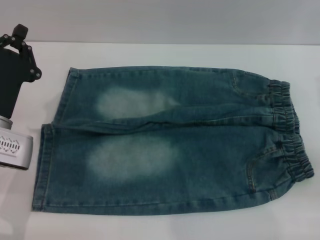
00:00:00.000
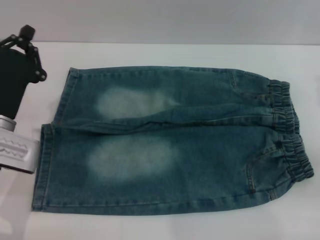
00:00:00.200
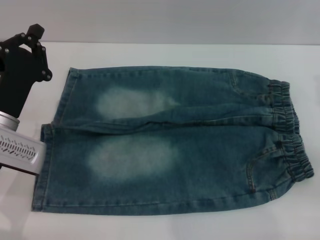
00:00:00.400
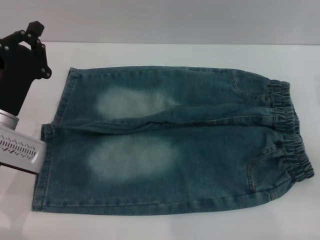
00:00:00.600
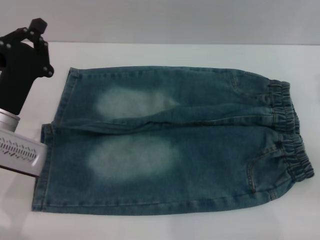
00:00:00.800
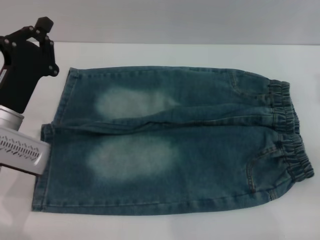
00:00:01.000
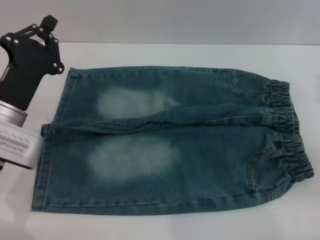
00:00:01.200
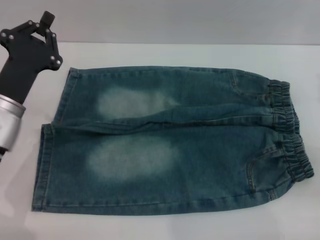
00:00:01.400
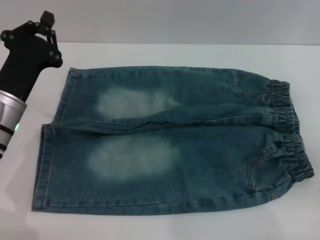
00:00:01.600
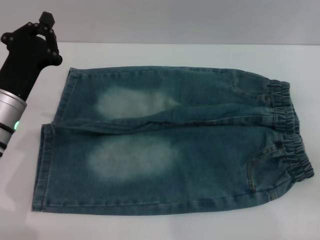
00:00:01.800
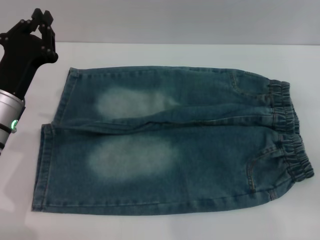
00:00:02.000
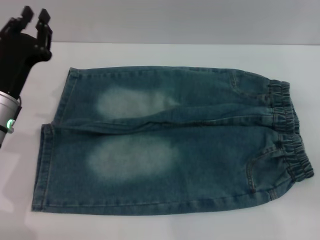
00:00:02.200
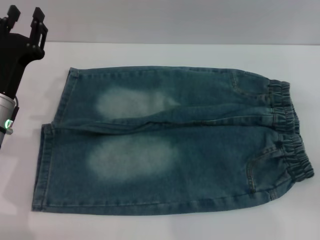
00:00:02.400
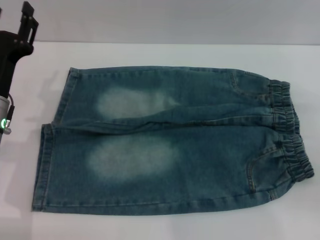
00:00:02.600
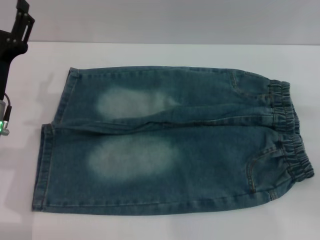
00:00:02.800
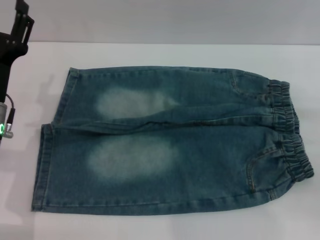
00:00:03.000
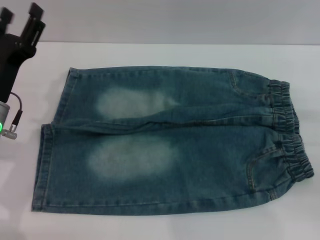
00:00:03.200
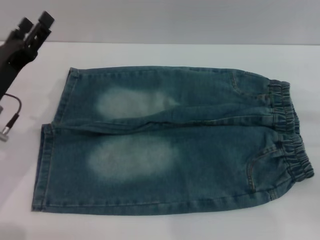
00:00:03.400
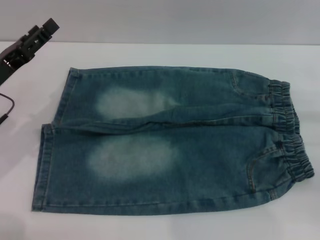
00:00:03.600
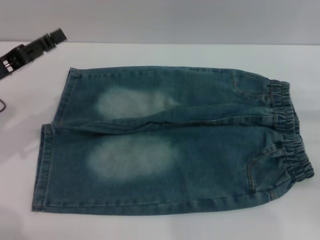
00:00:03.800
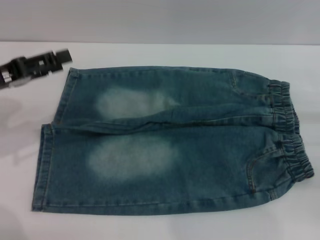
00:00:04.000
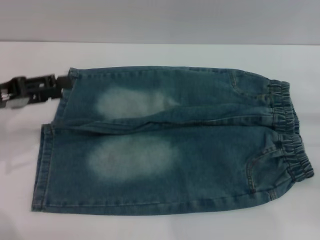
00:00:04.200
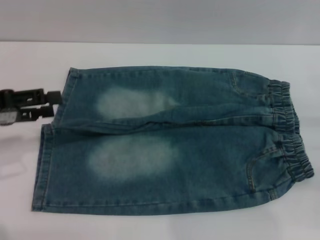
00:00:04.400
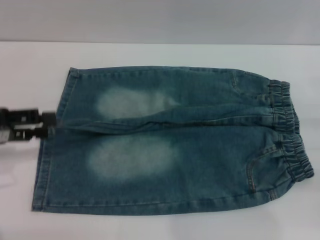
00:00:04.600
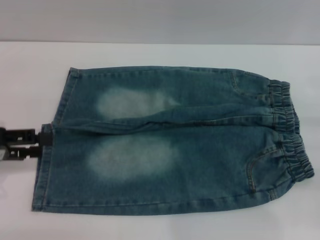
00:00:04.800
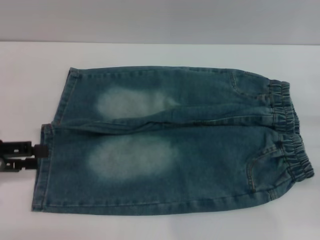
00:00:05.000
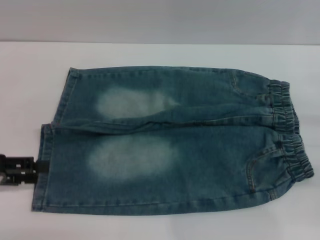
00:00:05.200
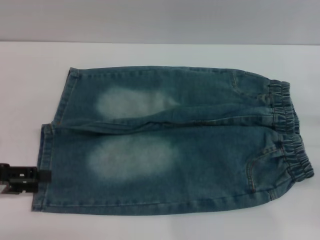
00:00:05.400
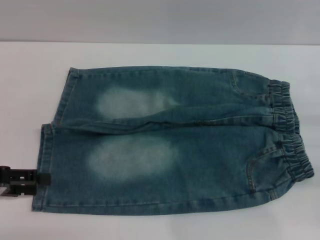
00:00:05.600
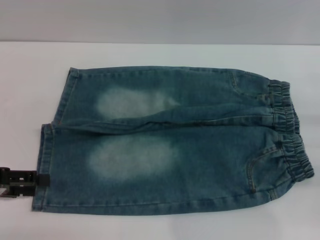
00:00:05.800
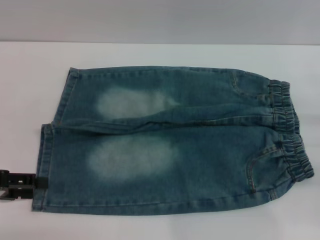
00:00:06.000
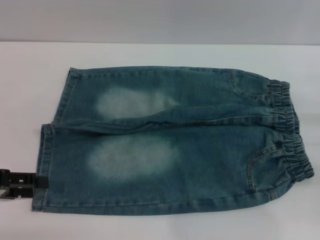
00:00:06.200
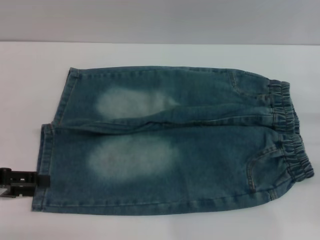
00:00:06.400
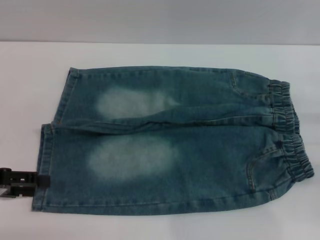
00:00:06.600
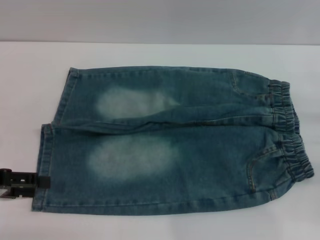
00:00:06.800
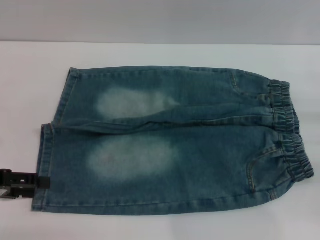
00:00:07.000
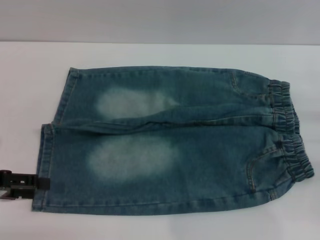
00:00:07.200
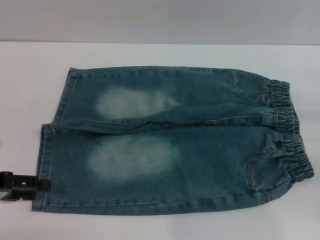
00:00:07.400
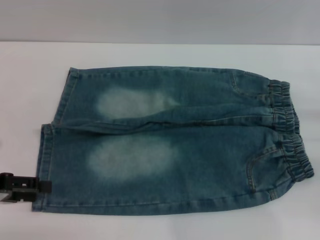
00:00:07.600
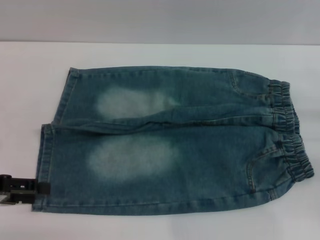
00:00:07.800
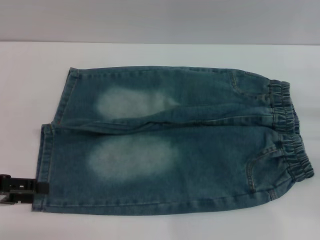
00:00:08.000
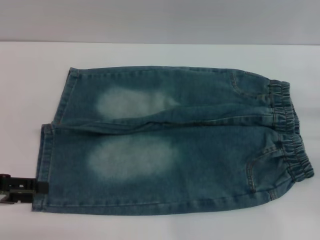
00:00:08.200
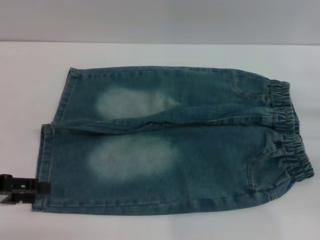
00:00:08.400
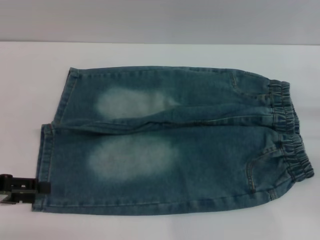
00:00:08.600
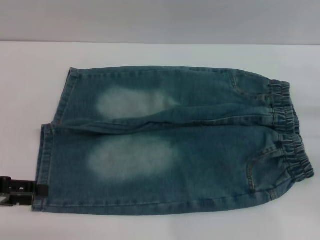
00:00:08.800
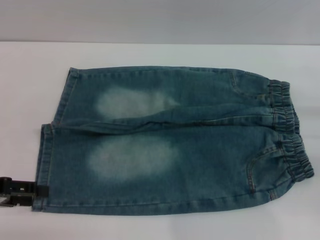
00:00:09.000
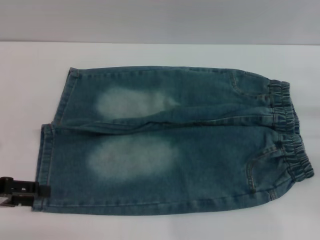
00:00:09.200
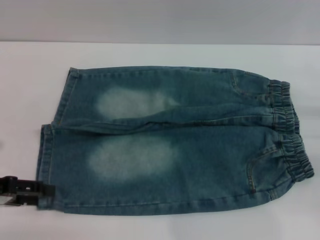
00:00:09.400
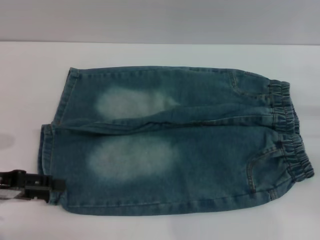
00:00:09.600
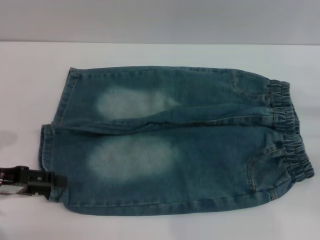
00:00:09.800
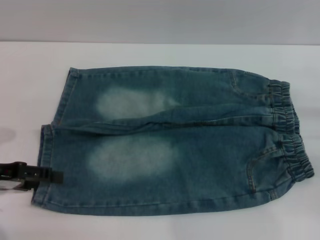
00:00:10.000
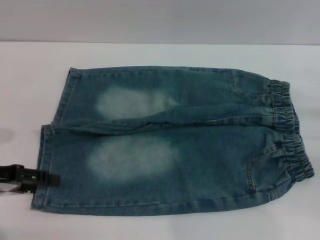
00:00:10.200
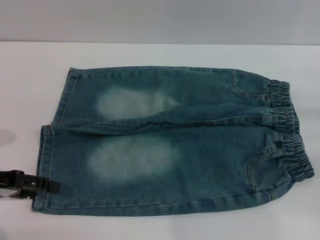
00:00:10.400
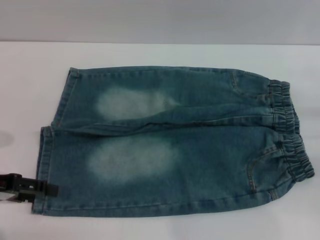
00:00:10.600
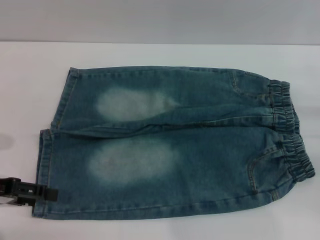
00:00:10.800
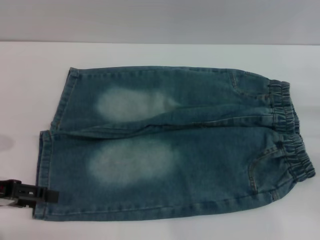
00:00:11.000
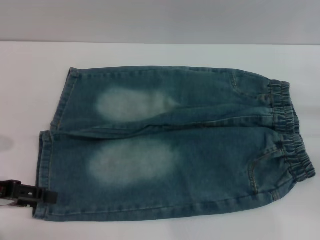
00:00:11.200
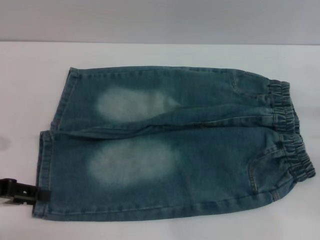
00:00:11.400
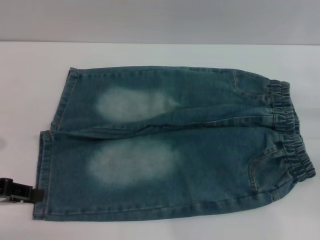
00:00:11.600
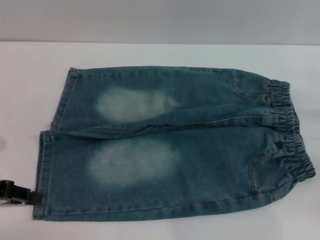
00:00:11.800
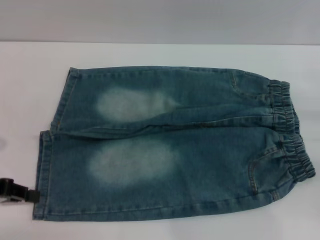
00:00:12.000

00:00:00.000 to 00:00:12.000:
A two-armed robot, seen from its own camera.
00:00:01.600 to 00:00:03.000: The left gripper opens.
00:00:03.000 to 00:00:04.400: The left gripper travels to the left and upward by approximately 10 cm.
00:00:04.400 to 00:00:06.000: The left gripper shifts some 5 cm backward.
00:00:06.000 to 00:00:07.600: The two grippers keep their place.
00:00:07.600 to 00:00:09.000: Both grippers stay about where they are.
00:00:09.000 to 00:00:10.400: The grippers stay close to where they were, moving slightly.
00:00:10.400 to 00:00:12.000: The left gripper closes up.

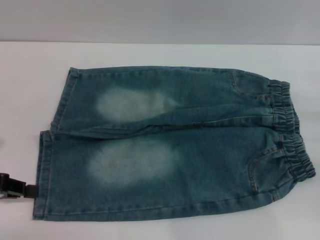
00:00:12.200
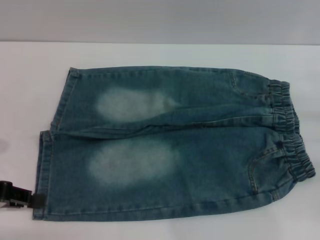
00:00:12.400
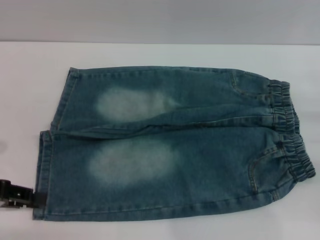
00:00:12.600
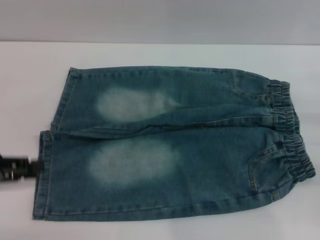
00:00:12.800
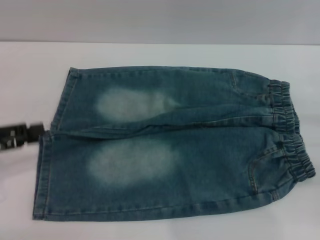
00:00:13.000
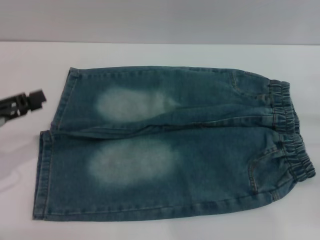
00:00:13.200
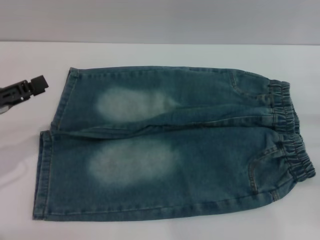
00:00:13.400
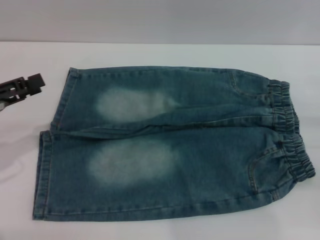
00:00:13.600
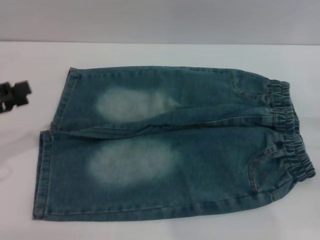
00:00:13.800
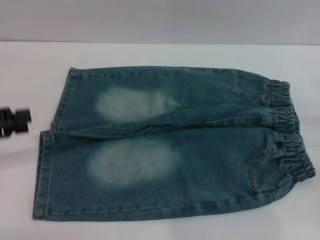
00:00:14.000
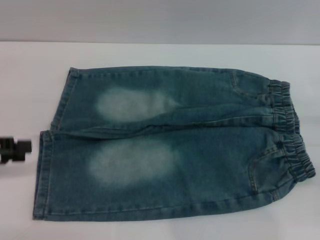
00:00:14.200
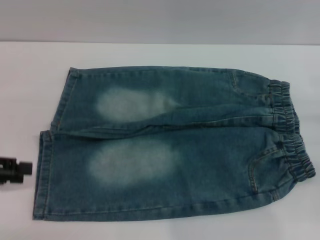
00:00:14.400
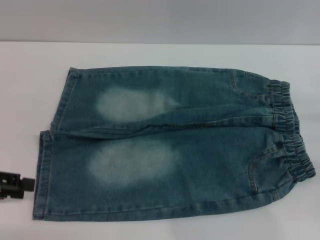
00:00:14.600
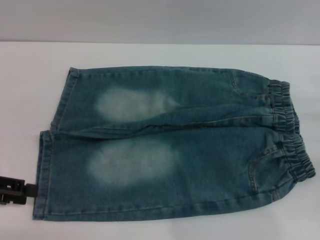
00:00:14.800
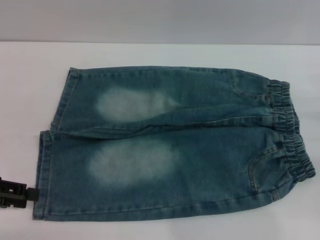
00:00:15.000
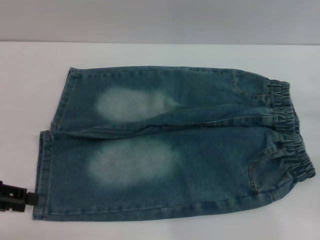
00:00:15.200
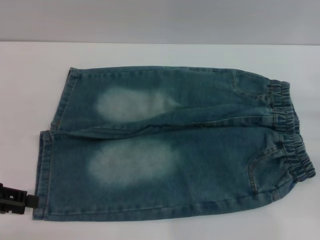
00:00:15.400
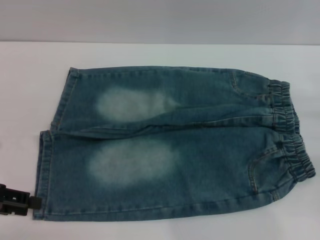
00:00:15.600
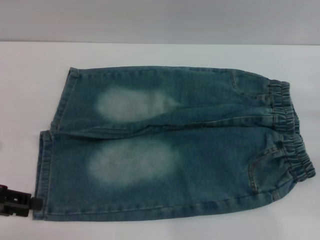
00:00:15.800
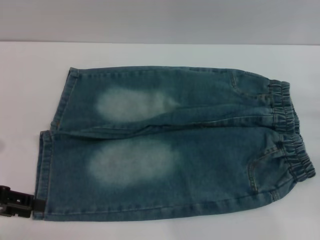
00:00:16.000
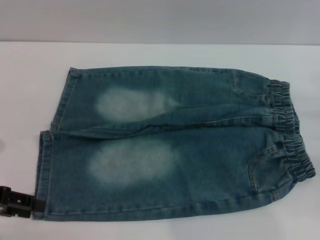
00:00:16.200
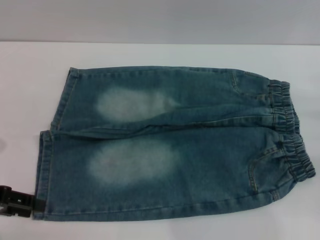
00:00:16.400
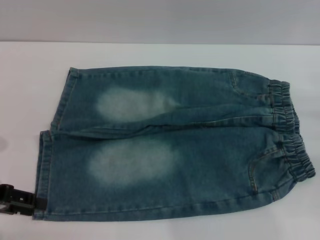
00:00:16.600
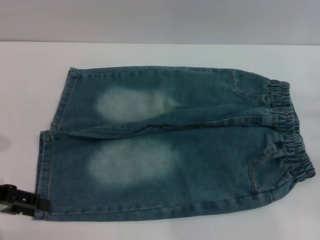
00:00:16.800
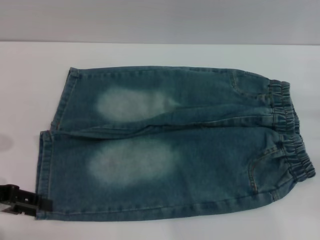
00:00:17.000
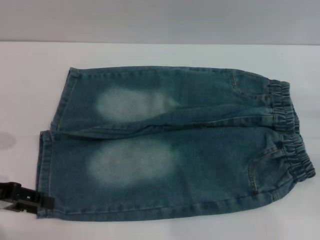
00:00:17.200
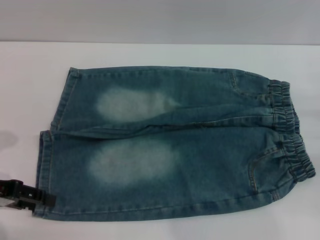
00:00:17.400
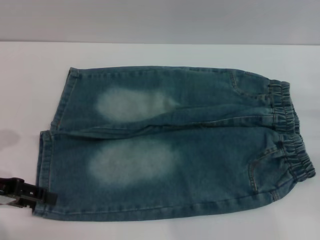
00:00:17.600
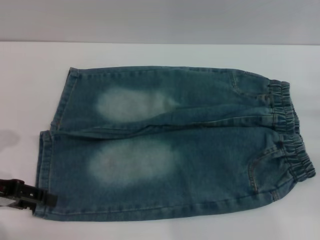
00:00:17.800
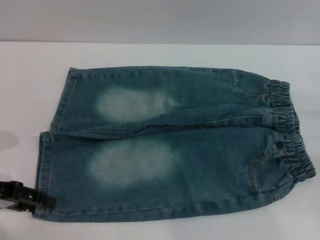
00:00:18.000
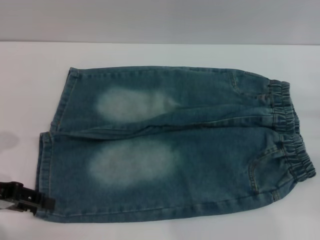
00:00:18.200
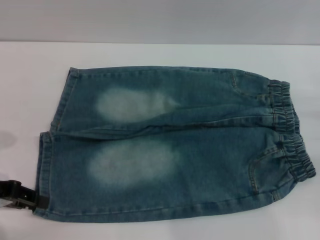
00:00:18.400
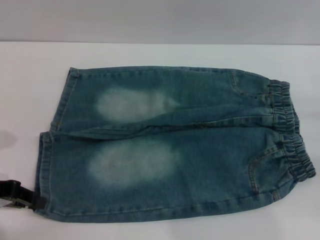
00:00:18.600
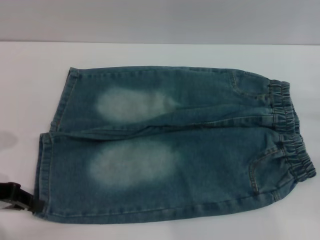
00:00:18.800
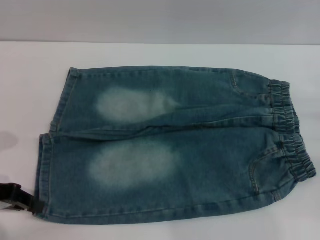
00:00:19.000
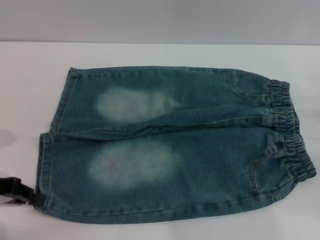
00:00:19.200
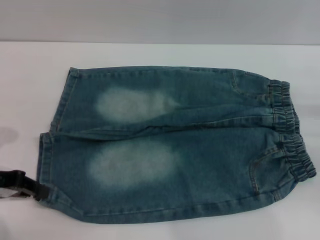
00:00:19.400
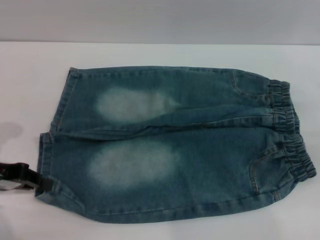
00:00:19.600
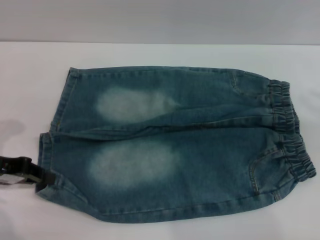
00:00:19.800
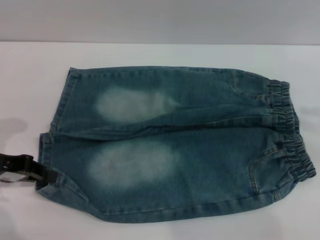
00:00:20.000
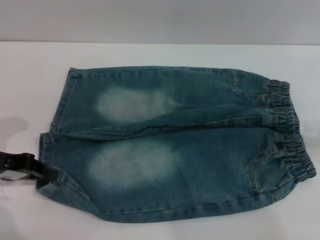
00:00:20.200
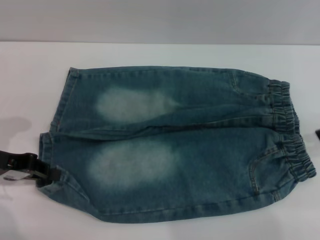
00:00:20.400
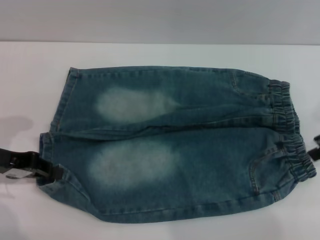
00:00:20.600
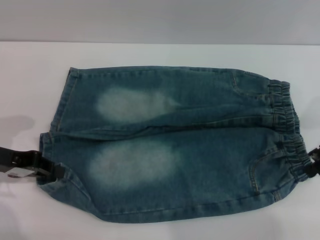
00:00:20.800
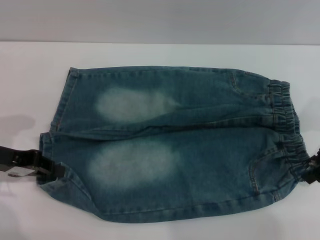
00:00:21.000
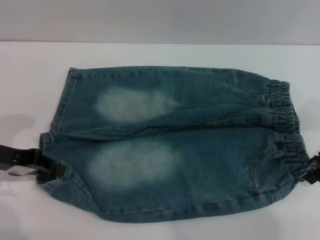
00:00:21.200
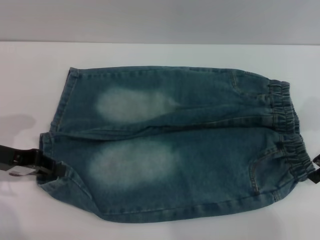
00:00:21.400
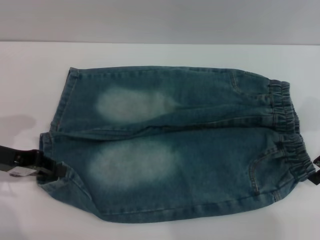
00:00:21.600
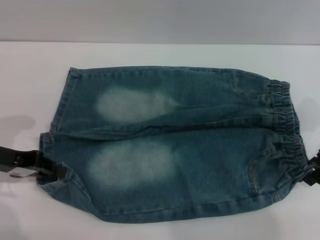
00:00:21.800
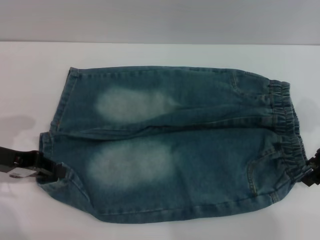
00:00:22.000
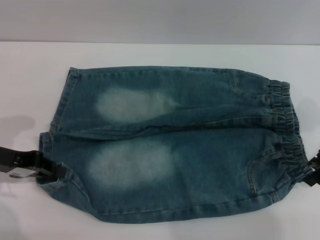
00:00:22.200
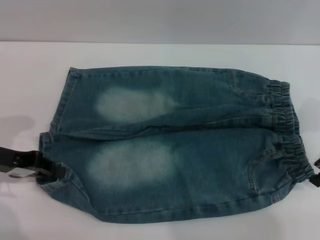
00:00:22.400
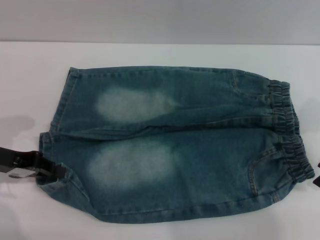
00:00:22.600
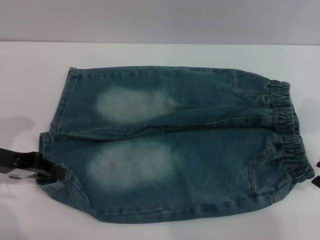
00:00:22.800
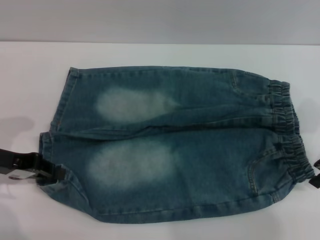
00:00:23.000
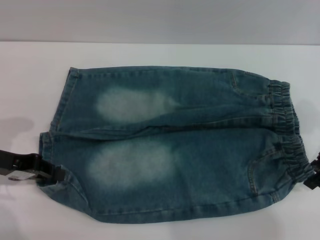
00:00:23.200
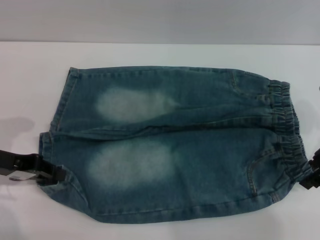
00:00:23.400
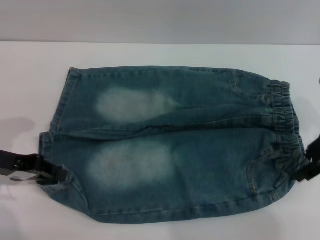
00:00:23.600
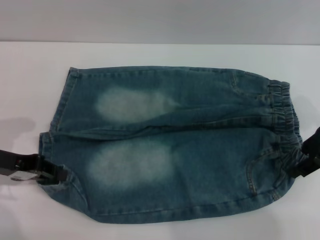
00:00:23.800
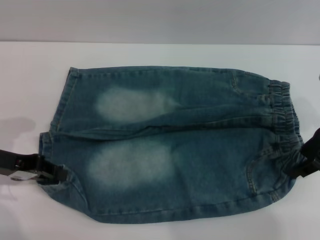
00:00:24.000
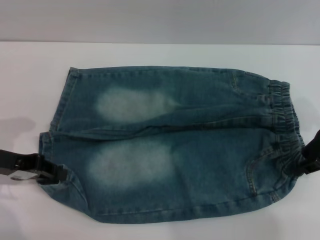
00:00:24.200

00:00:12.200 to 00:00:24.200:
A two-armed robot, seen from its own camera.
00:00:12.200 to 00:00:13.800: The left gripper opens.
00:00:16.600 to 00:00:18.200: The grippers stay close to where they were, moving slightly.
00:00:18.200 to 00:00:19.800: The left gripper closes up.
00:00:21.200 to 00:00:24.200: The grippers move only a little.
